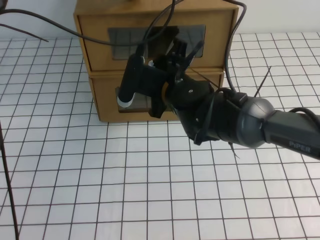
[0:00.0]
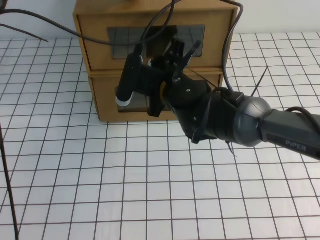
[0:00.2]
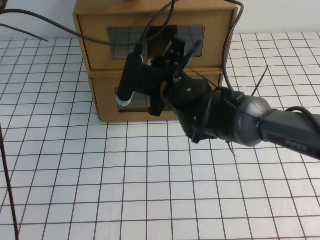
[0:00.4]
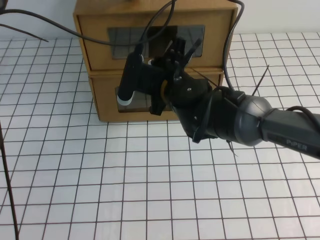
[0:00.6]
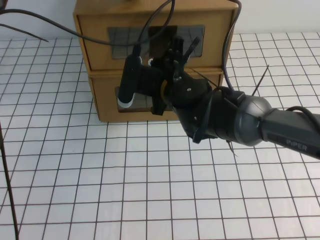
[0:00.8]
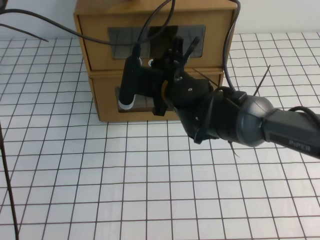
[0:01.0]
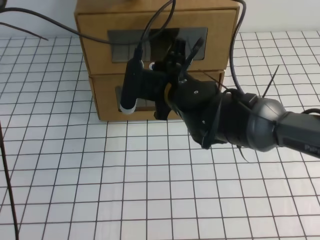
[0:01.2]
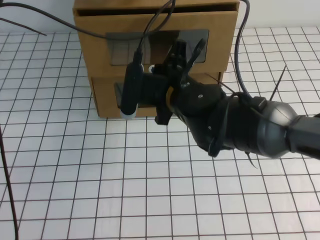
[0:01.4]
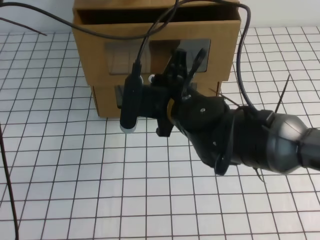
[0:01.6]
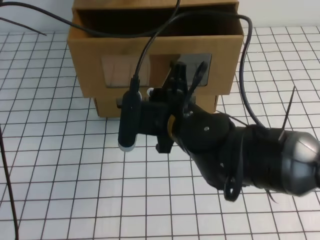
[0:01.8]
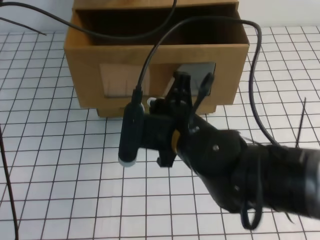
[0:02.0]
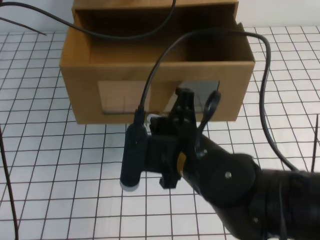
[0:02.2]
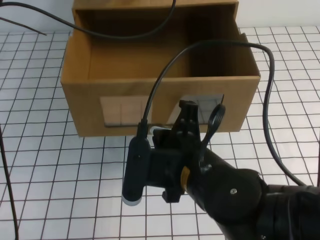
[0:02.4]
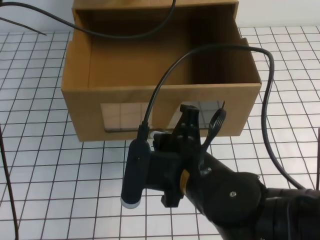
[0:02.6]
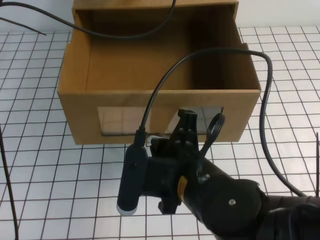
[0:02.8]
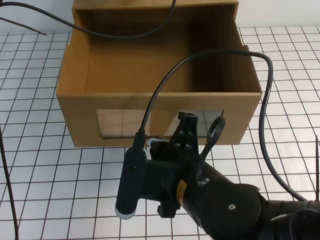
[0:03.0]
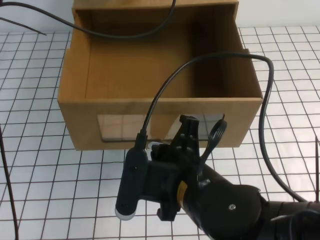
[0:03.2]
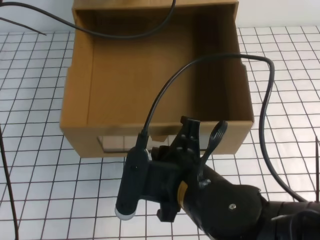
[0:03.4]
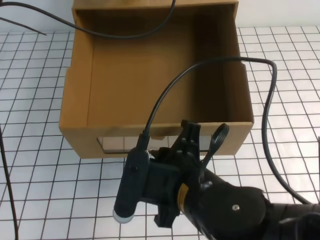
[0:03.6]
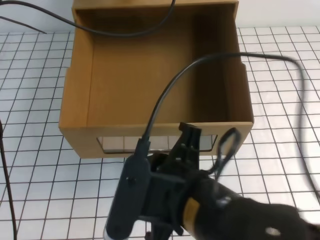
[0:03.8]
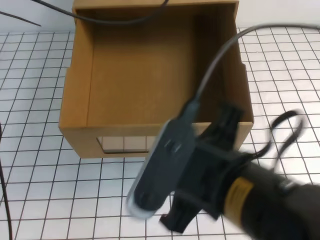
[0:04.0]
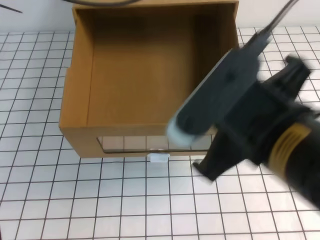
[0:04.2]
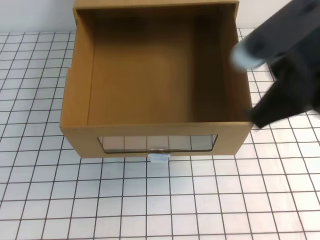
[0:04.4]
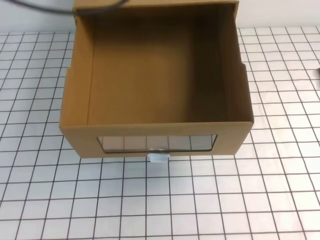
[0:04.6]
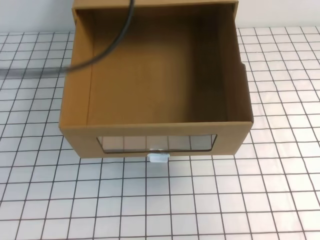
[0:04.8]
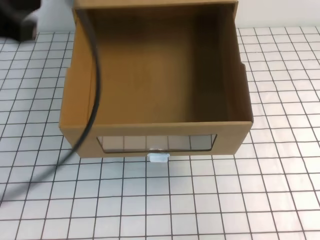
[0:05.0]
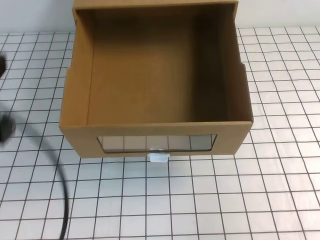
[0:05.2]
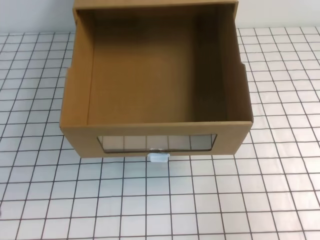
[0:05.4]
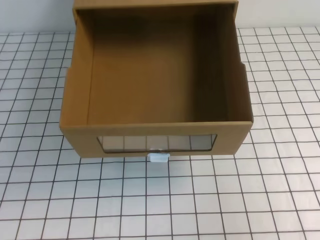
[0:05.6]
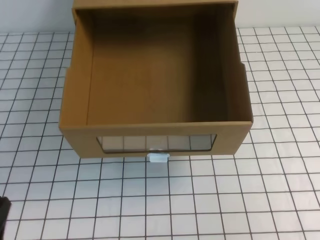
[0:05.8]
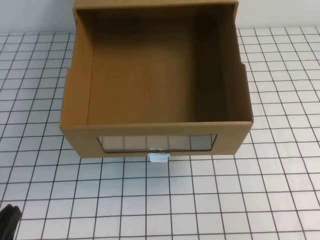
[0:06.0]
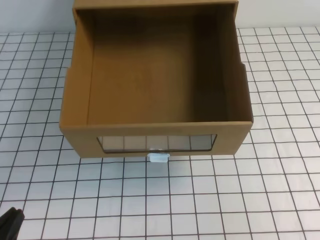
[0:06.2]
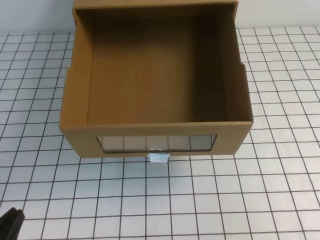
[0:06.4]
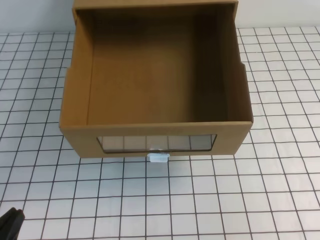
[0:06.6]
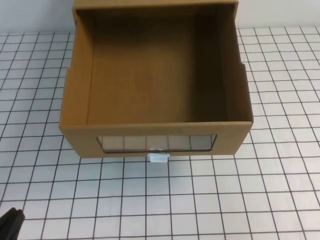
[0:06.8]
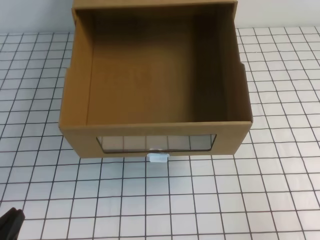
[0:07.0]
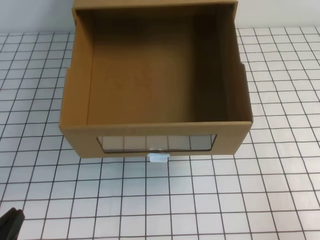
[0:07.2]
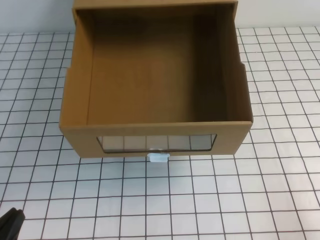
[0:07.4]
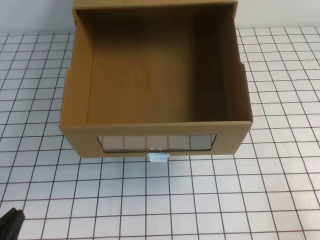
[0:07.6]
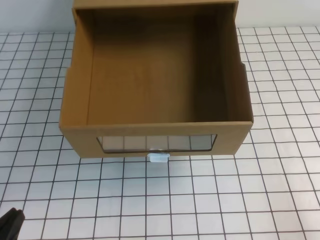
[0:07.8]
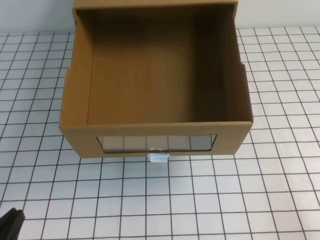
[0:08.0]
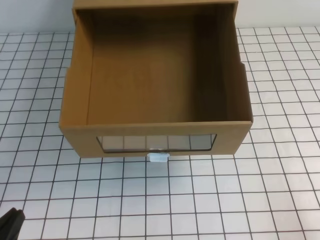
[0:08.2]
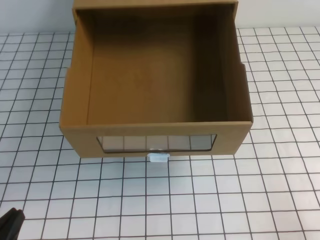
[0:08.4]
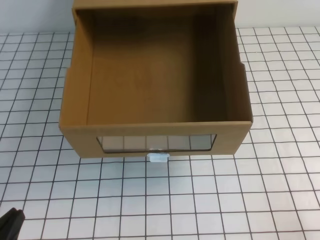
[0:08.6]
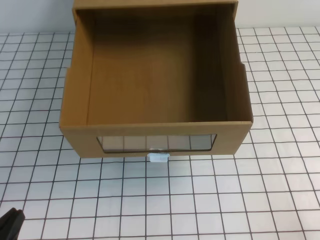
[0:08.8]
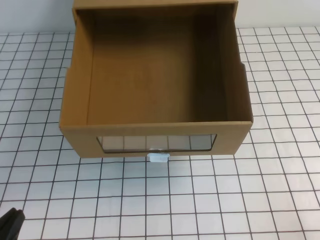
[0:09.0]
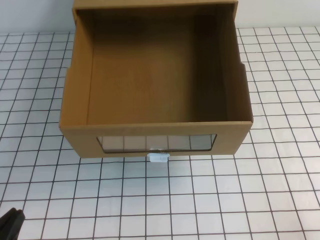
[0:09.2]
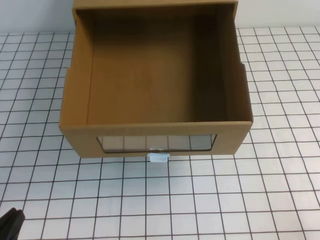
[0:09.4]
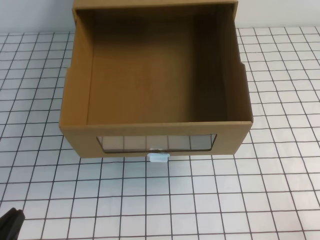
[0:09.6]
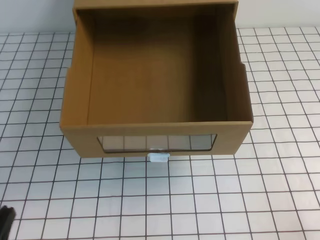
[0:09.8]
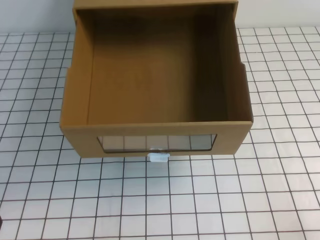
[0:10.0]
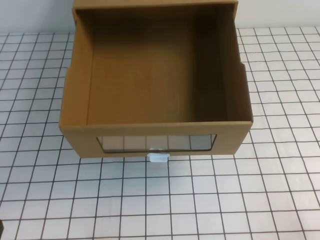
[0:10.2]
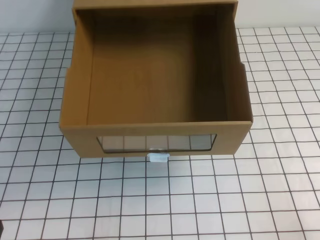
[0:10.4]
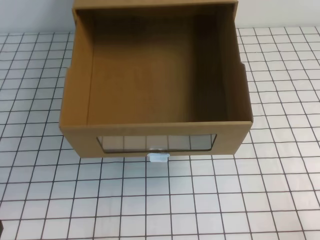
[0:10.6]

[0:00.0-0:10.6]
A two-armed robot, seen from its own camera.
Task of the whole recording: open the shoebox on the white tablecloth.
Step, 0:00.0 to 0:10.6: Open the shoe box.
0:00.0 to 0:01.6: The right gripper moves backward, about 5 cm, and closes.
0:01.6 to 0:03.0: The right gripper shifts some 15 cm backward.
0:03.0 to 0:04.6: The left gripper shifts some 15 cm backward and upward. Meanwhile the right gripper is displaced to the right and upward by approximately 25 cm.
0:04.6 to 0:06.0: The right gripper shifts some 15 cm downward, backward and to the right; the left gripper moves downward and backward, some 40 cm.
0:06.0 to 0:07.6: The right gripper heads downward, covering some 10 cm.

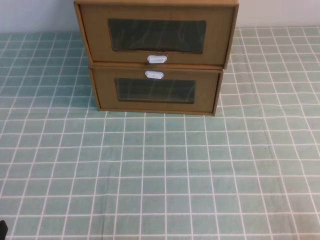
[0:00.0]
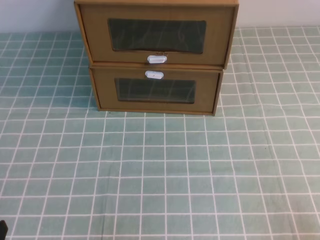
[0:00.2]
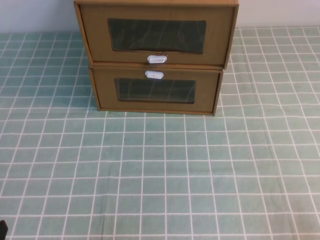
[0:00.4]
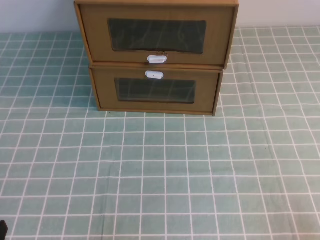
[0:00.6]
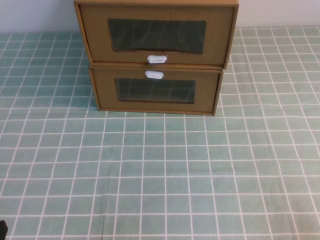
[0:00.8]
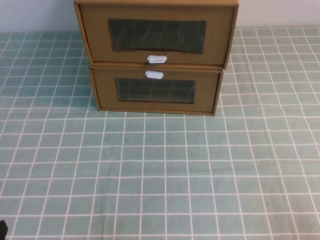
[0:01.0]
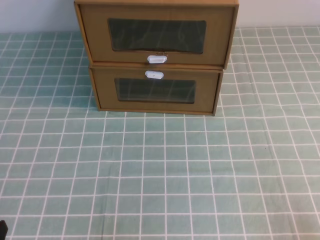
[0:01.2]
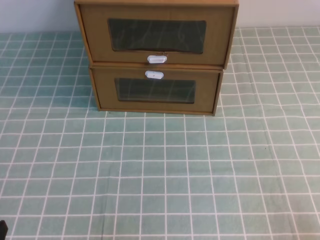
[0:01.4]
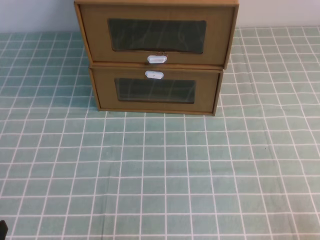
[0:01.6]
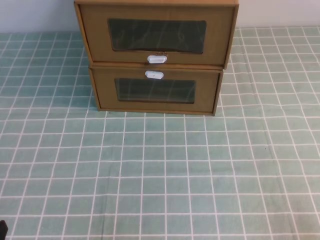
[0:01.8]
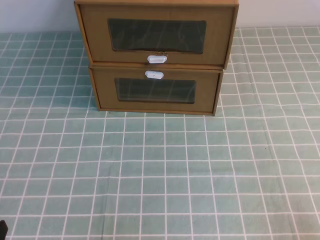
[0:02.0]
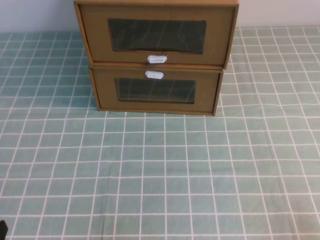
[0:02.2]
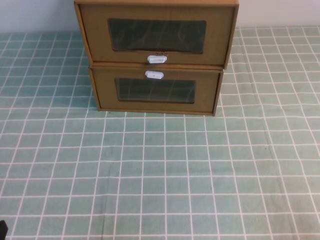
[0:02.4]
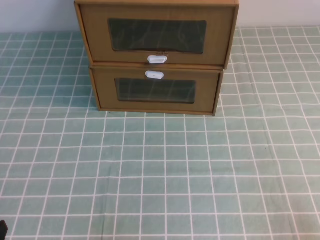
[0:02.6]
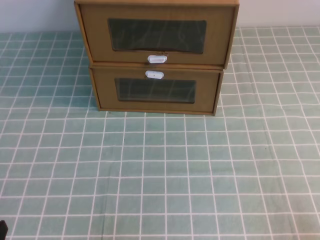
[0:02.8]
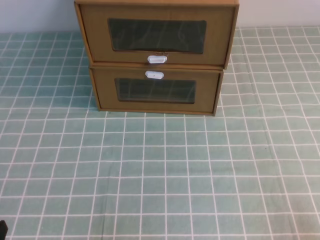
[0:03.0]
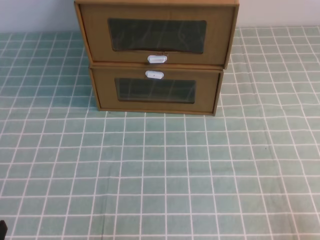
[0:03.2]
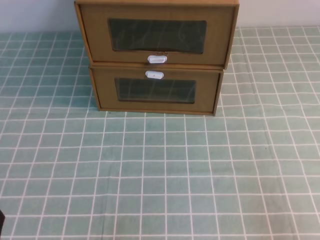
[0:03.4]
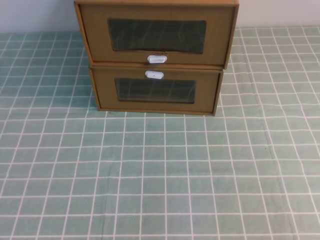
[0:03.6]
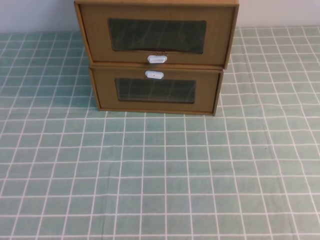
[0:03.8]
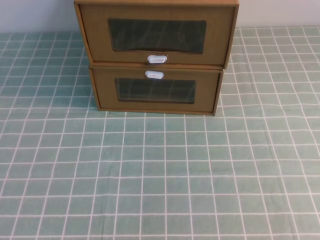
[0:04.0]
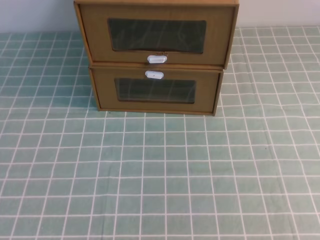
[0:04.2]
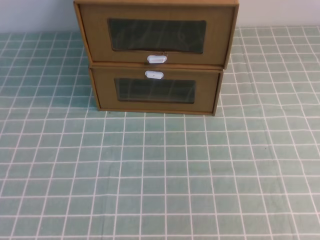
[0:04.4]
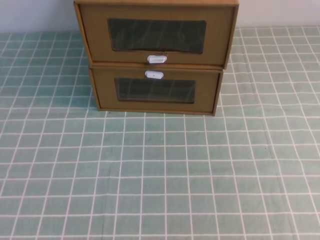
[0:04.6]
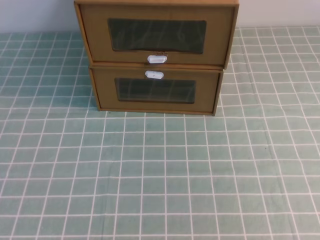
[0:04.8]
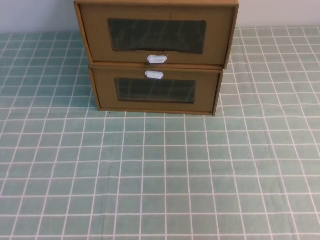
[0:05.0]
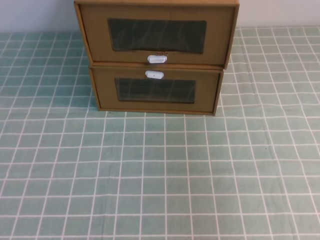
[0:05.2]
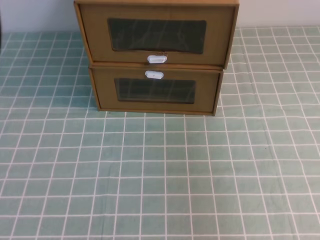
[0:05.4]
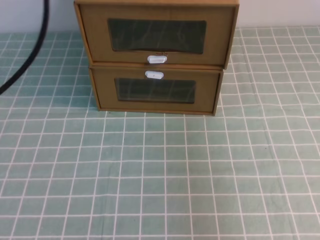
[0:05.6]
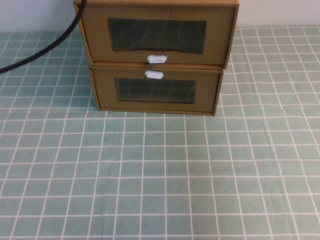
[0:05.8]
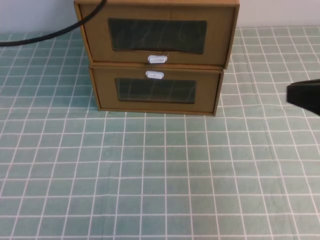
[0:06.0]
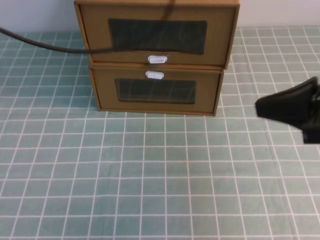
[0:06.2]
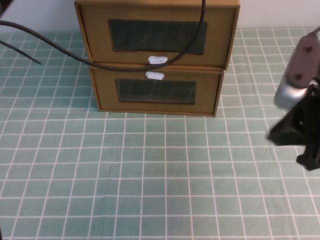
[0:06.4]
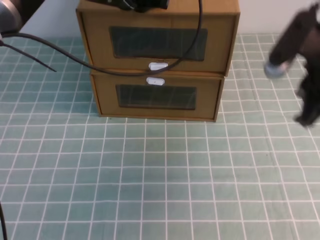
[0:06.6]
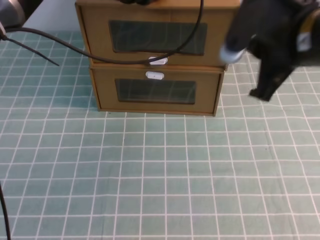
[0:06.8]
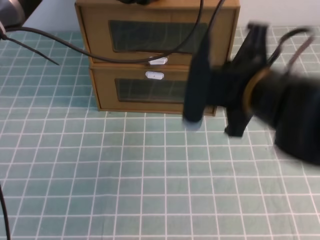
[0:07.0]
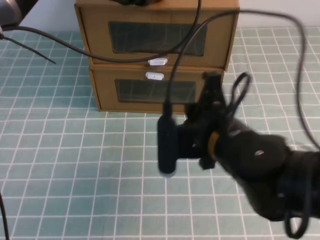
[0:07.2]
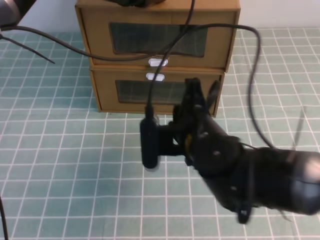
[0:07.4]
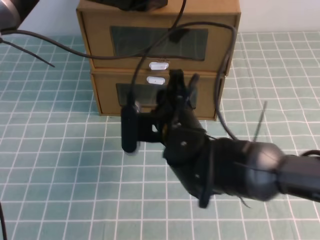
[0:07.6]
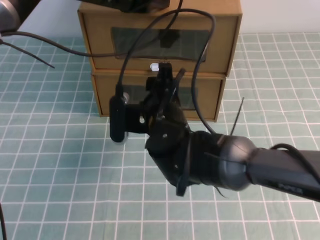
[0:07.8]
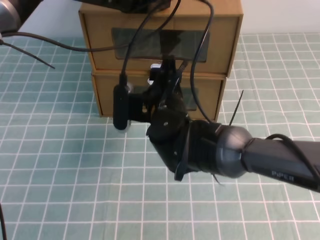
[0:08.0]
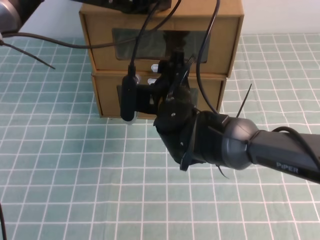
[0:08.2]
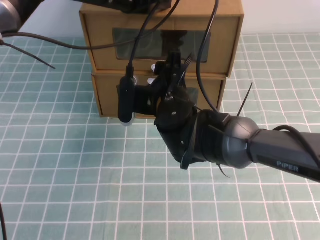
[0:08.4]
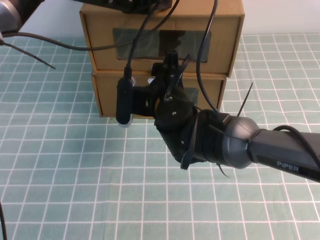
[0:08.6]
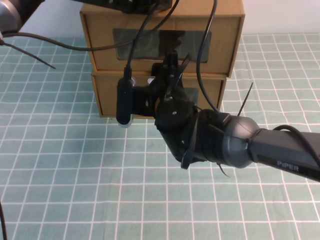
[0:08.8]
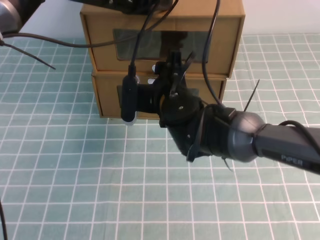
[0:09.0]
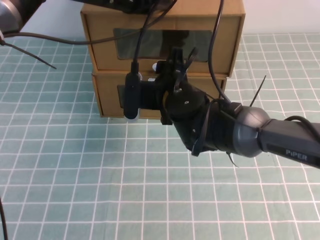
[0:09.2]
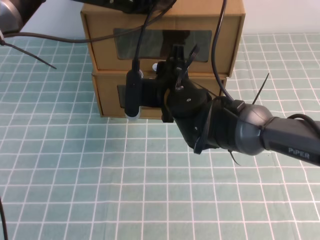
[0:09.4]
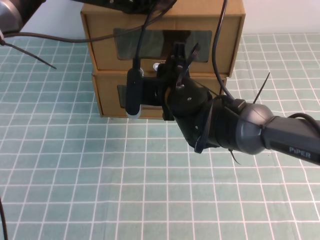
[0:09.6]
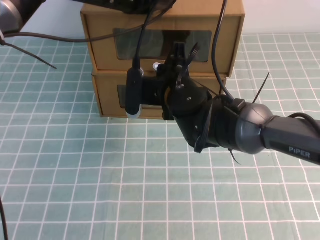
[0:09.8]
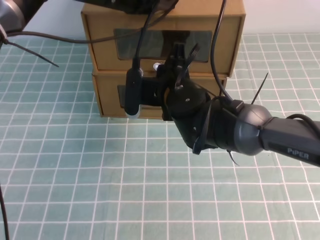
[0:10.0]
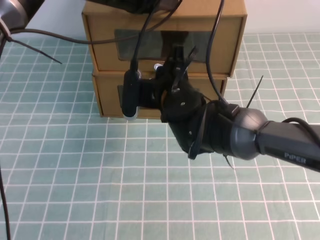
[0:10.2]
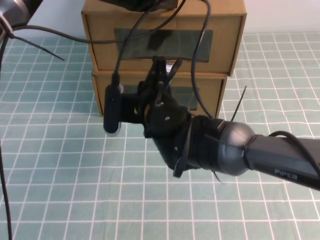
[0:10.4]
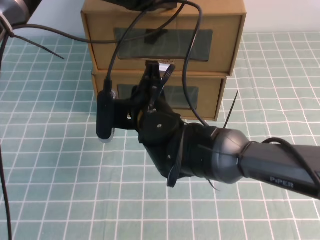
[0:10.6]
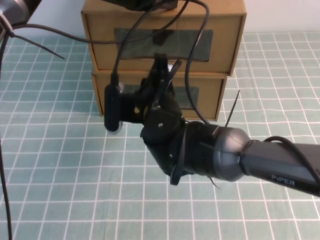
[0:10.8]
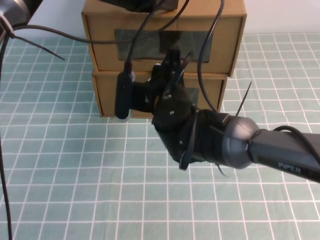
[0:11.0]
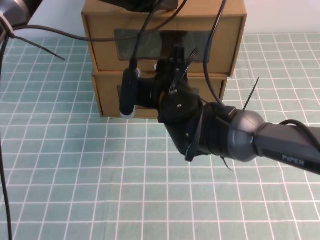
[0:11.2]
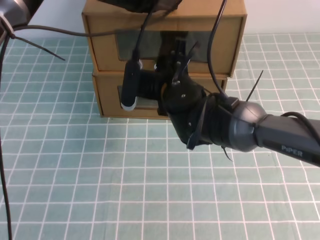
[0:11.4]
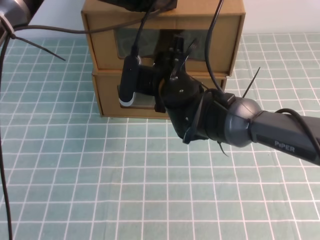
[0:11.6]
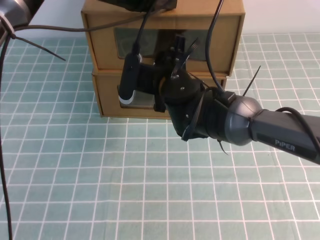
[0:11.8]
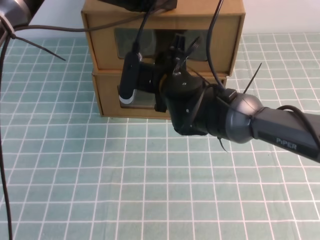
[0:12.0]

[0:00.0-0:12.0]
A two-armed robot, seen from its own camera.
Task of the whole recording: open the shoebox on the cyan tablecloth.
0:00.0 to 0:03.0: Both grippers stay put.
0:04.4 to 0:06.0: The right gripper moves forward, roughly 20 cm. Meanwhile the left gripper travels forward, upward and to the right by some 40 cm.
0:06.0 to 0:07.6: The right gripper goes approximately 30 cm to the left, downward and forward, and opens its fingers, while the left gripper goes some 15 cm to the right, downward and forward.
0:07.6 to 0:09.0: The right gripper moves forward, approximately 5 cm.
0:09.0 to 0:10.4: The right gripper closes its fingers.
